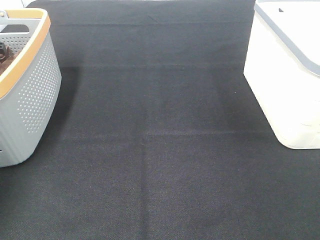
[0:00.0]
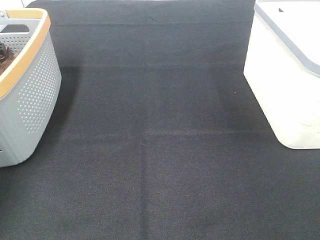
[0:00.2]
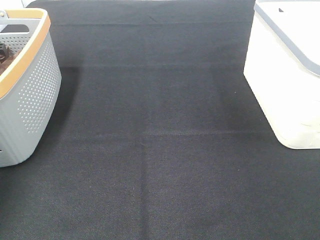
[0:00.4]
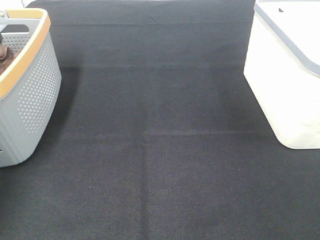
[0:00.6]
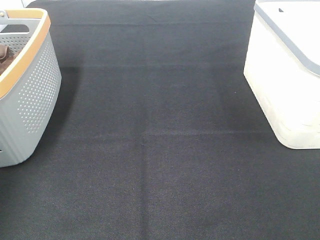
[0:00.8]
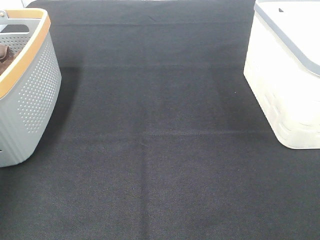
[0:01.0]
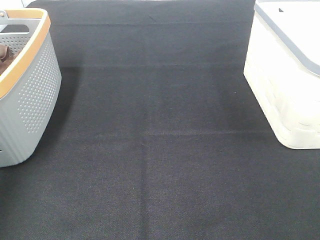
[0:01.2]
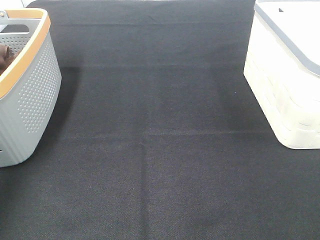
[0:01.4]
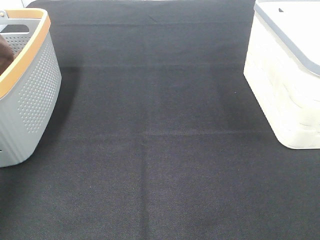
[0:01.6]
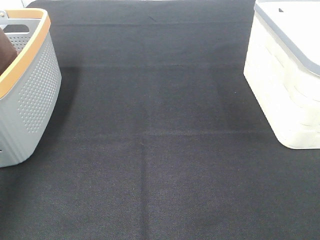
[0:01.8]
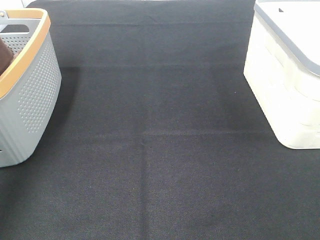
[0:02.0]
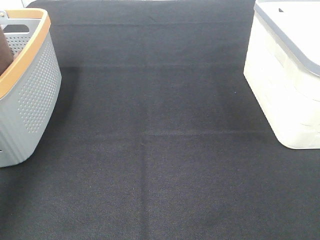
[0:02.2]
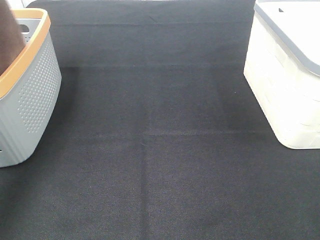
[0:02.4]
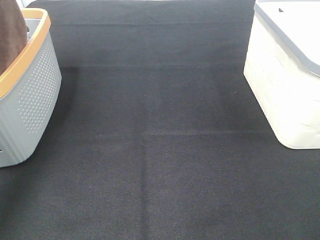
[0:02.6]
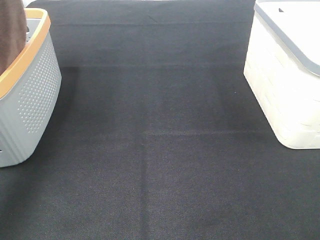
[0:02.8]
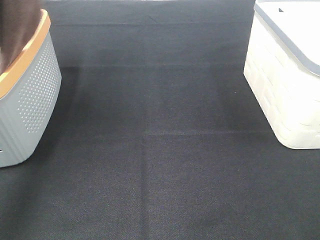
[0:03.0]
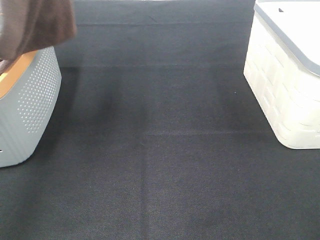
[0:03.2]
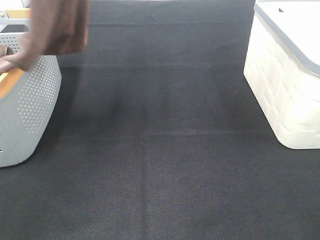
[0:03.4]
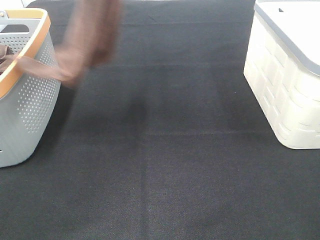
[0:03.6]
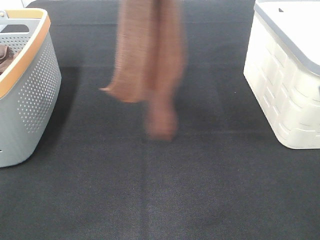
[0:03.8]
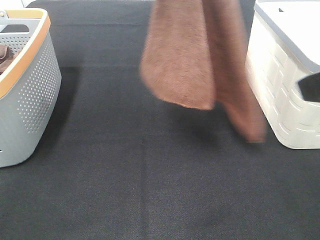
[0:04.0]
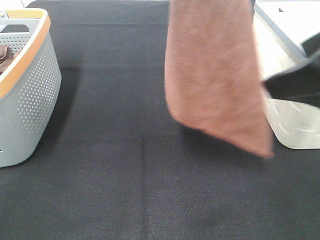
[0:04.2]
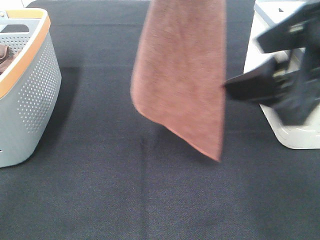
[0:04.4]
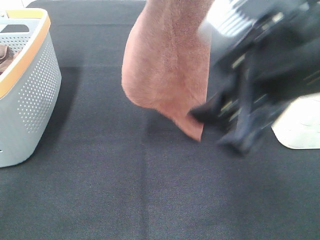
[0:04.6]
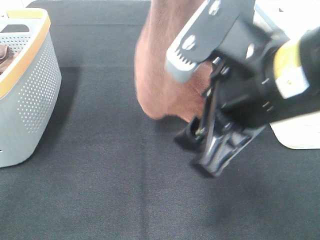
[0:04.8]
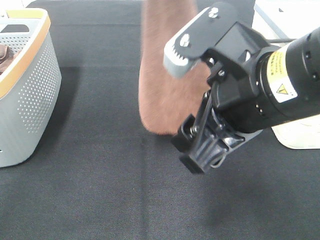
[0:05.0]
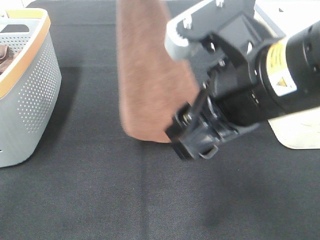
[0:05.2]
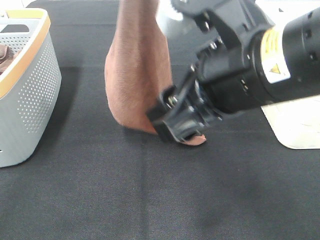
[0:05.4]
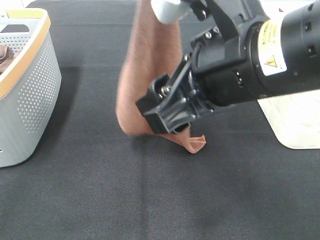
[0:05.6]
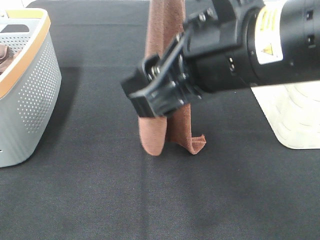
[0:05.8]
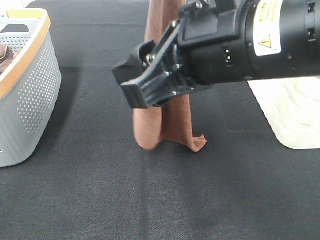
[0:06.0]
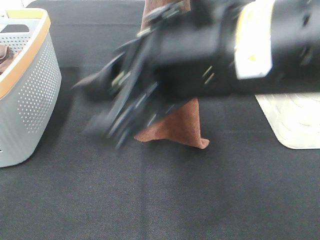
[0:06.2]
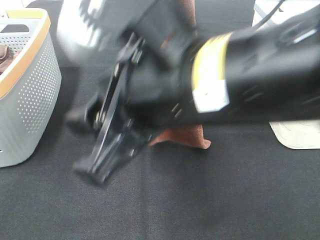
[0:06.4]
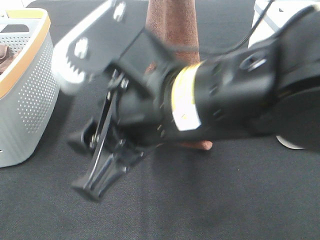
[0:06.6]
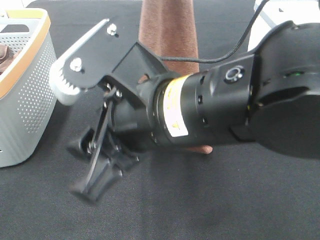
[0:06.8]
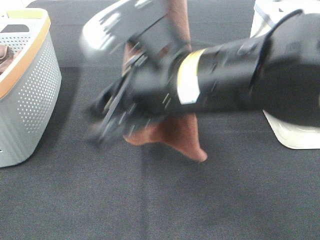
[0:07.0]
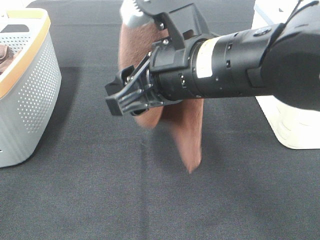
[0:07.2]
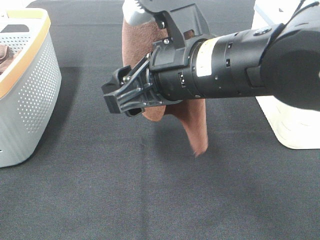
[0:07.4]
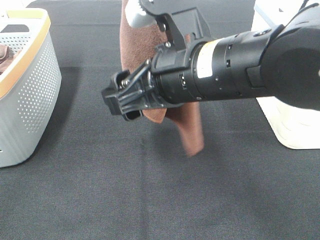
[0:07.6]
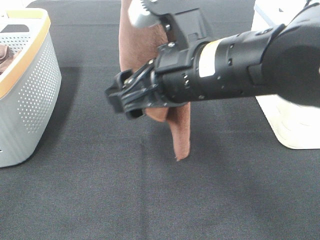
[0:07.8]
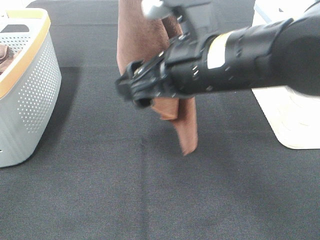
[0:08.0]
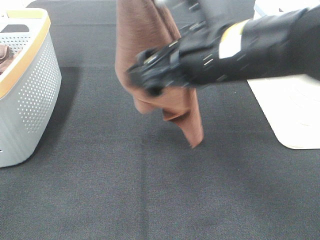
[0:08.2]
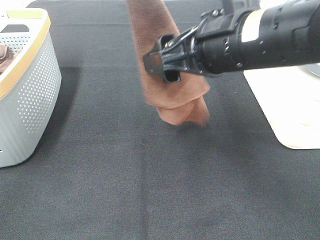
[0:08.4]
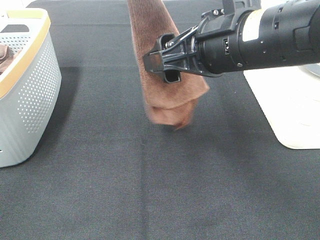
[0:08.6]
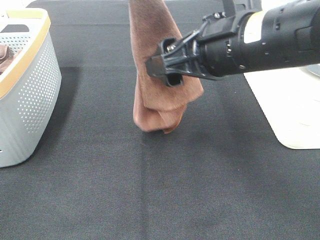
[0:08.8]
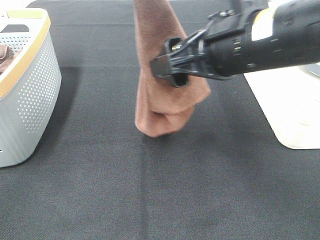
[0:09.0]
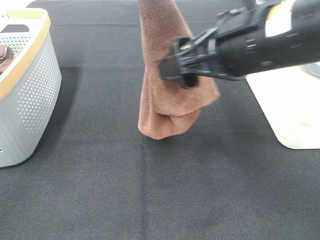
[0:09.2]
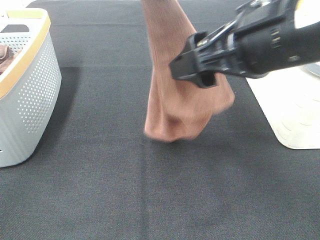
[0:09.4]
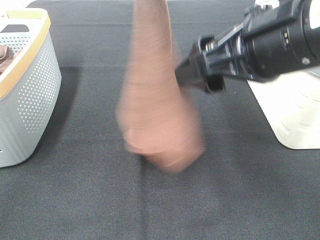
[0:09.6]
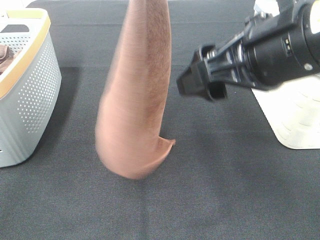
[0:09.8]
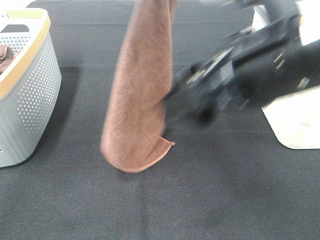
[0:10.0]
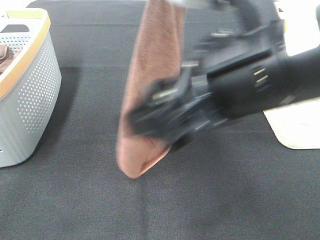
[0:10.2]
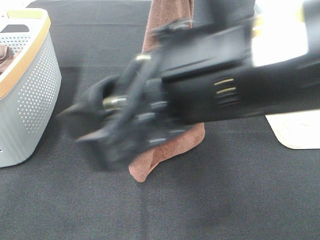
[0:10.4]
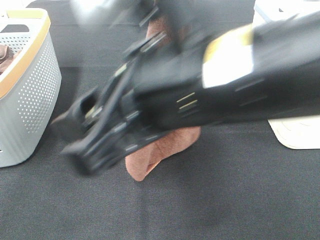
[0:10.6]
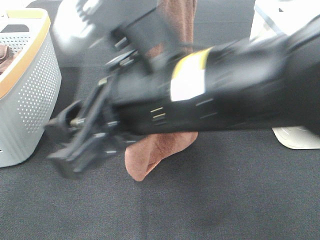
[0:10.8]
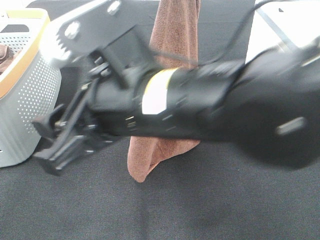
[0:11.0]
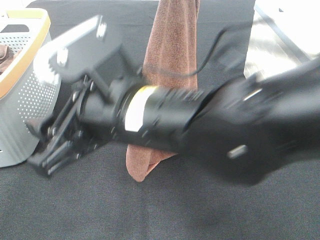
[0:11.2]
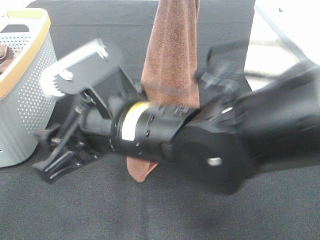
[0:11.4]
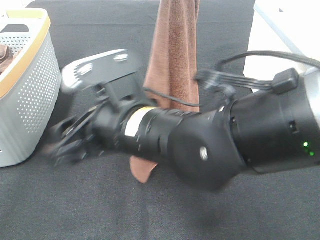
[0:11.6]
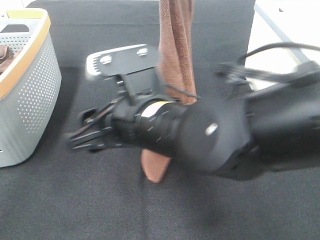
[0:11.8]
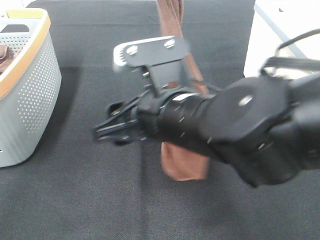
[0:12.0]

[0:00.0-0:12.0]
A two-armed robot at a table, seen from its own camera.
Task of the whole recording: Remove the towel and place it.
1.6 to 3.0 s: The left gripper shifts some 15 cm to the right, upward and backward.
3.0 to 4.4 s: The left gripper heads to the right and downward, covering about 20 cm; the right gripper goes roughly 15 cm forward and to the left.
4.4 to 6.0 s: The right gripper goes roughly 10 cm to the left.
6.0 to 7.6 s: The left gripper moves approximately 5 cm, while the right gripper shifts some 5 cm downward.
7.6 to 9.0 s: The right gripper is displaced to the right by about 5 cm.
9.0 to 10.4 s: The right gripper travels backward and to the left by roughly 10 cm; the left gripper ends up roughly 5 cm from where it was.
10.4 to 12.0 s: The right gripper moves downward and forward, roughly 10 cm.

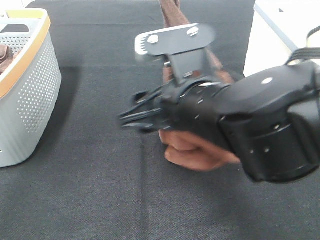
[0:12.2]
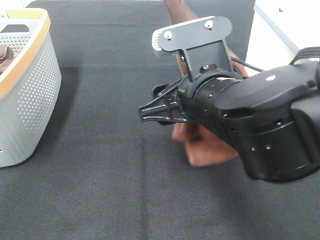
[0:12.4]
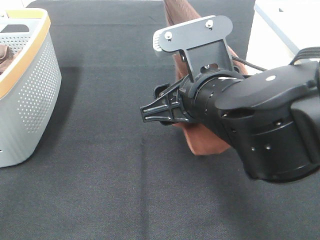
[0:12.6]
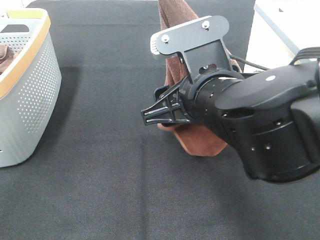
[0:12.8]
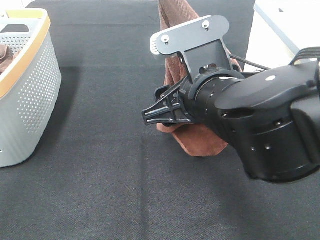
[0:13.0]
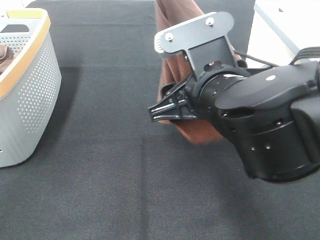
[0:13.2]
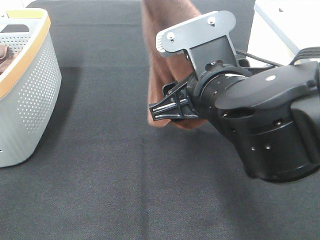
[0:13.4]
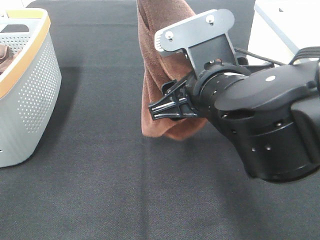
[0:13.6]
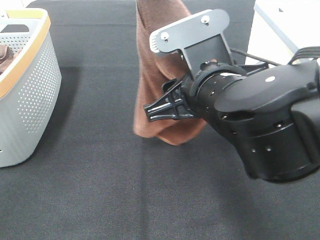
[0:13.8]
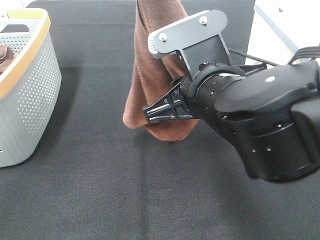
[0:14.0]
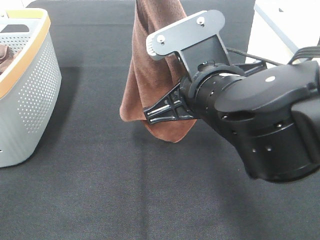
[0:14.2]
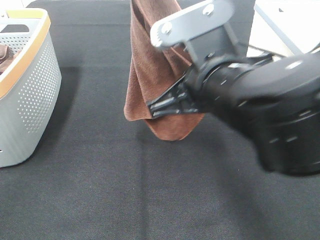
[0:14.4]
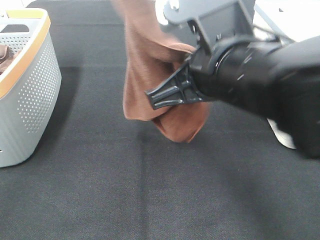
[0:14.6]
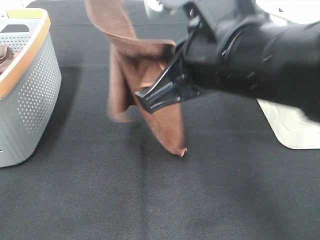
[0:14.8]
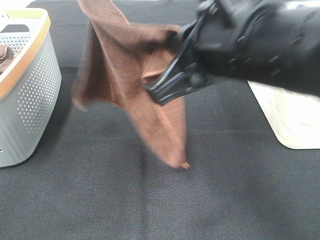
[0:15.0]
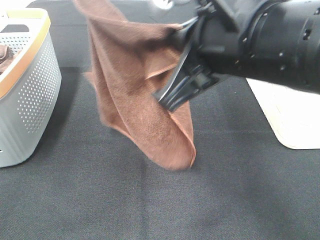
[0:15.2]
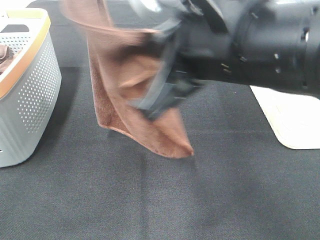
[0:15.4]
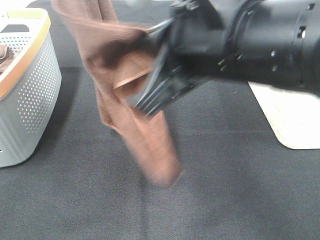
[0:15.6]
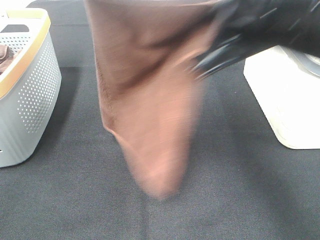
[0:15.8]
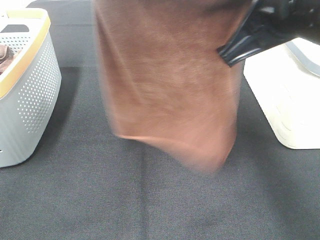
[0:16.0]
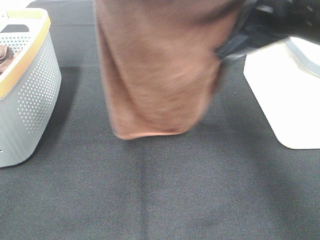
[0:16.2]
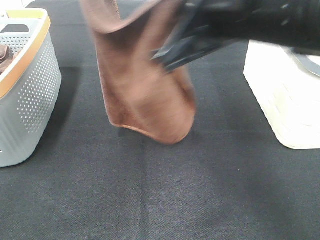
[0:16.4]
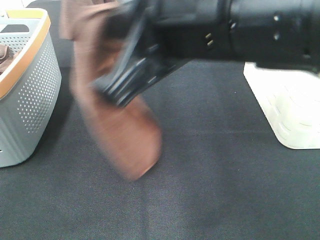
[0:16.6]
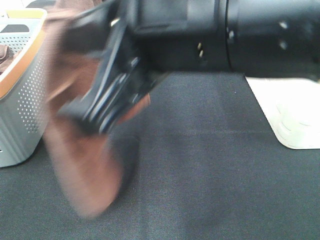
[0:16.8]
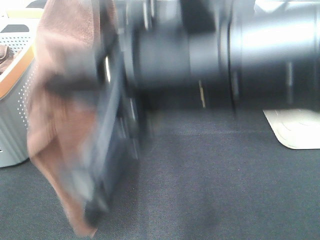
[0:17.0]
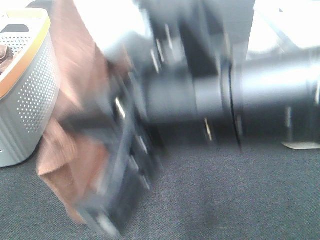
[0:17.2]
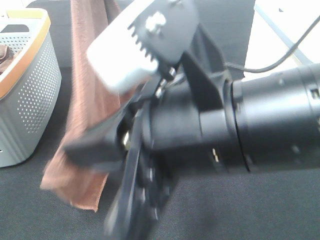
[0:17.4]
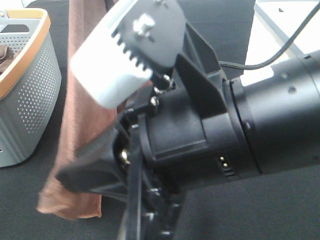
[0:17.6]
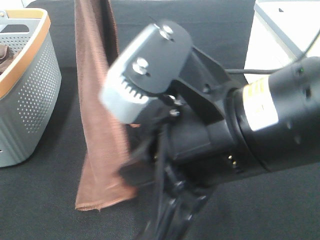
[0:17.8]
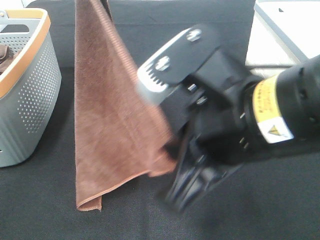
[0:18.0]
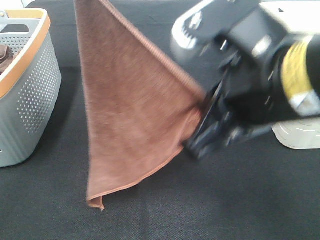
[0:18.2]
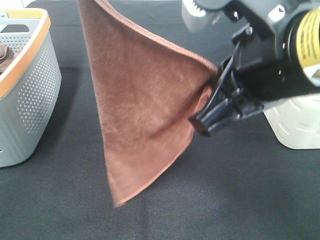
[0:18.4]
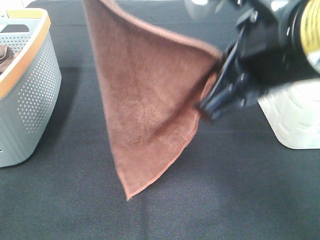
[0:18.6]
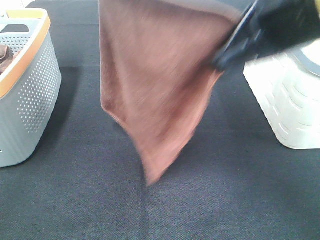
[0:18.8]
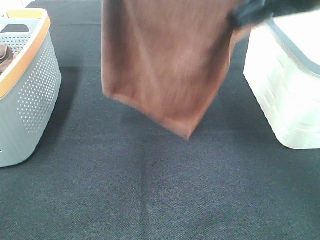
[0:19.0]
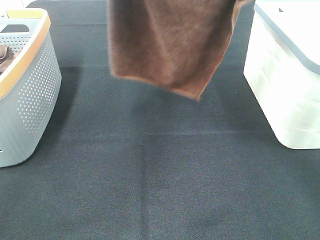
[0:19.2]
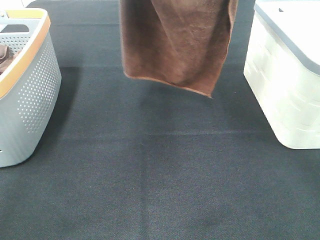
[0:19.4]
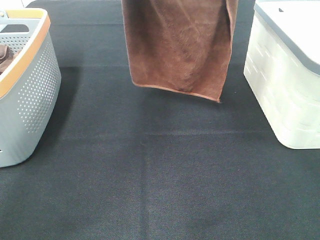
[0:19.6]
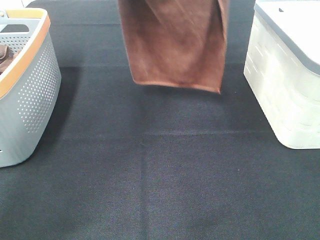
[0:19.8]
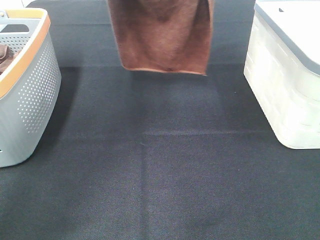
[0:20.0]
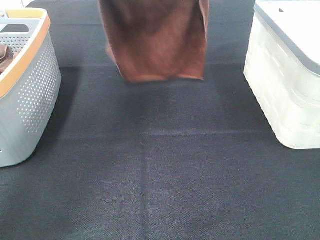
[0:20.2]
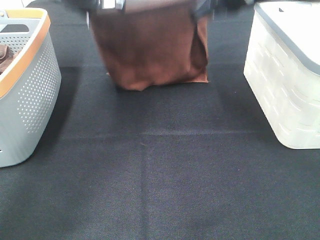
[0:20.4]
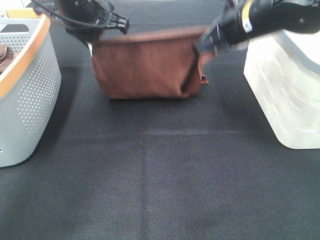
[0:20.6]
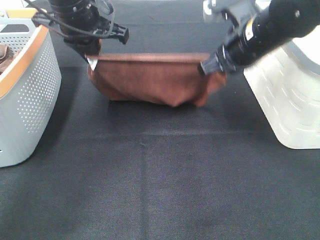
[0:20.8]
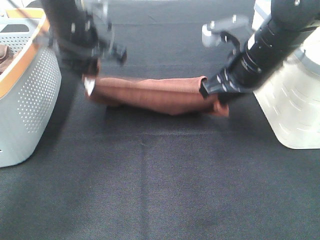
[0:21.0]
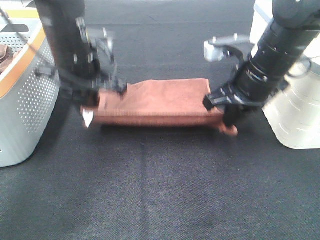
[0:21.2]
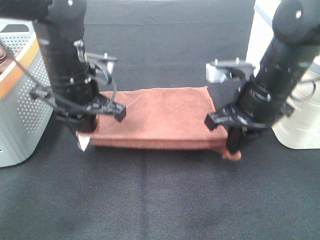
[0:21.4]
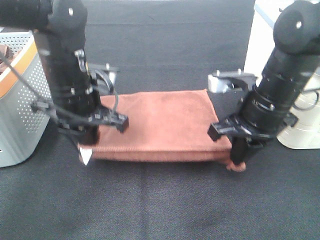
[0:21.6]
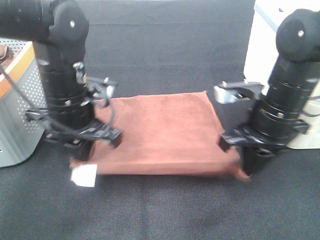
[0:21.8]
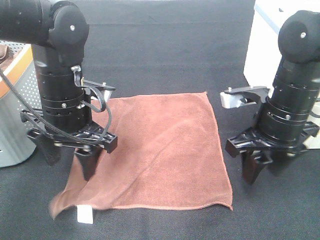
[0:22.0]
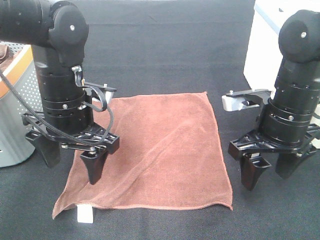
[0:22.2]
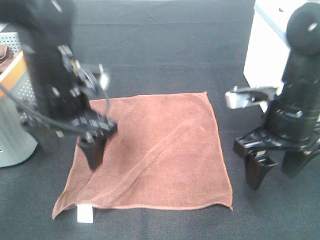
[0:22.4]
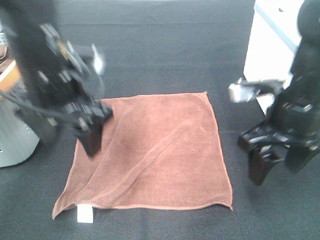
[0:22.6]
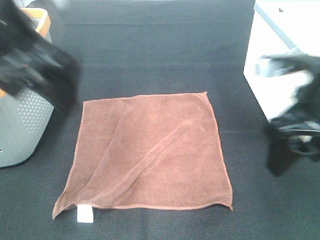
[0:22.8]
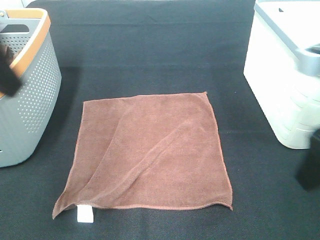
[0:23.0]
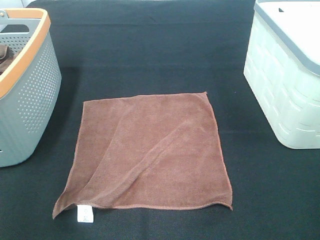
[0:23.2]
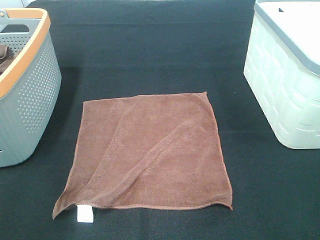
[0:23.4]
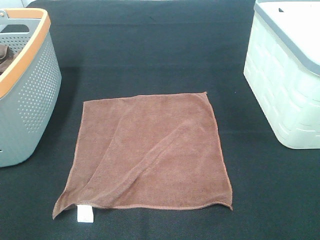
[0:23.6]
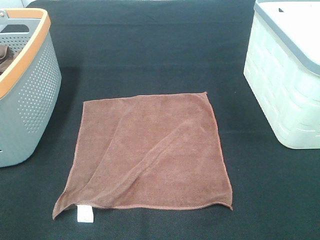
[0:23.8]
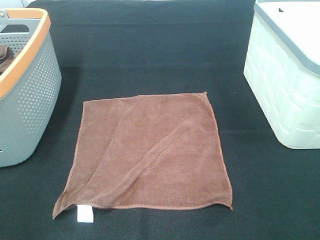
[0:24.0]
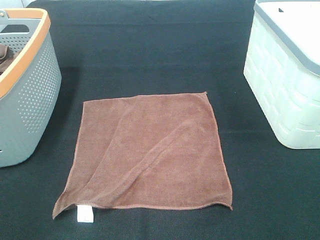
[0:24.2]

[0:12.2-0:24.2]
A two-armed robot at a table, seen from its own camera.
Task of the whole recording: Remove the towel and place it.
Step, 13.6 to 15.8 s: Left hand: spread the brown towel flat on the table.
Step, 13.6 to 15.8 s: Right hand: spread the brown towel flat on the table.
12.2 to 13.8 s: The left gripper moves about 5 cm.
13.8 to 15.2 s: The left gripper heads forward, covering about 5 cm. Meanwhile the right gripper travels upward by some 10 cm, and closes its fingers.
16.6 to 18.2 s: The right gripper ends up approximately 5 cm from where it was.
18.2 to 19.8 s: The left gripper goes some 10 cm forward. The right gripper goes roughly 20 cm forward.
19.8 to 21.2 s: The grippers both shift downward by about 15 cm.
21.2 to 22.6 s: The left gripper goes roughly 10 cm backward and upward, and opens its fingers. Meanwhile the right gripper moves backward, roughly 5 cm, and opens up.
22.6 to 24.2 s: The right gripper heads backward and to the right, covering approximately 25 cm; the left gripper goes approximately 30 cm backward and to the left.
